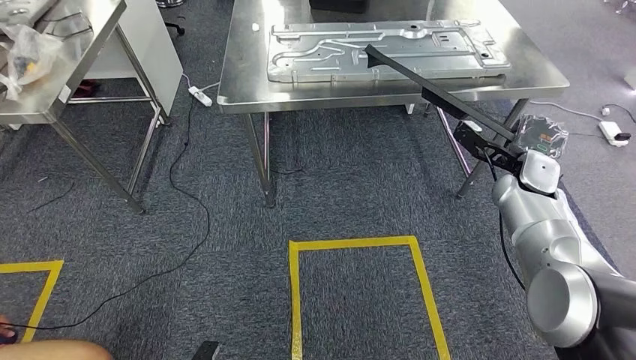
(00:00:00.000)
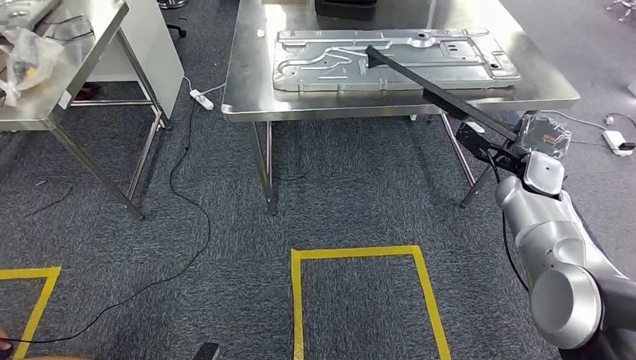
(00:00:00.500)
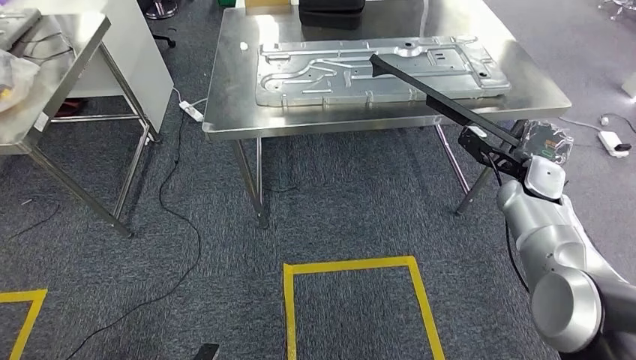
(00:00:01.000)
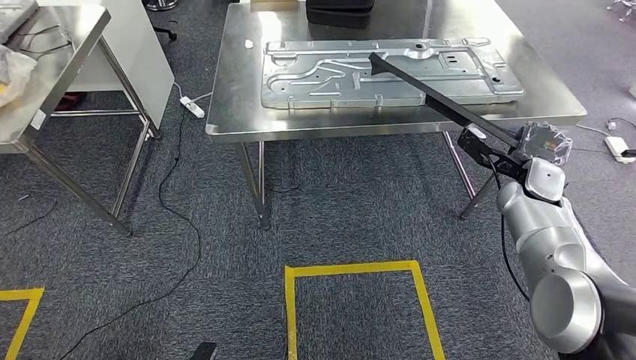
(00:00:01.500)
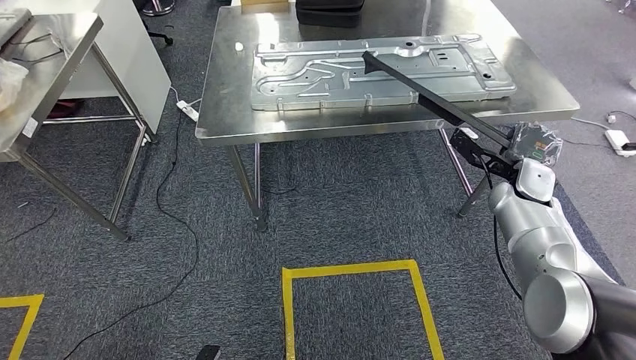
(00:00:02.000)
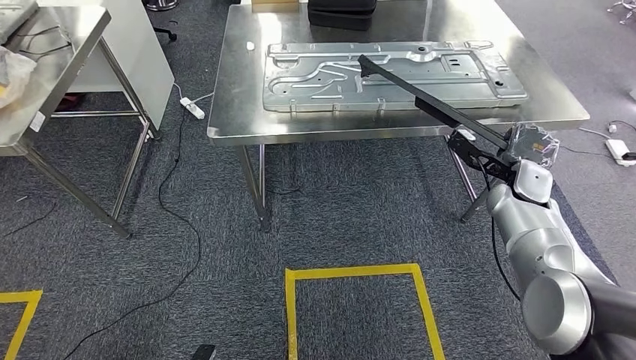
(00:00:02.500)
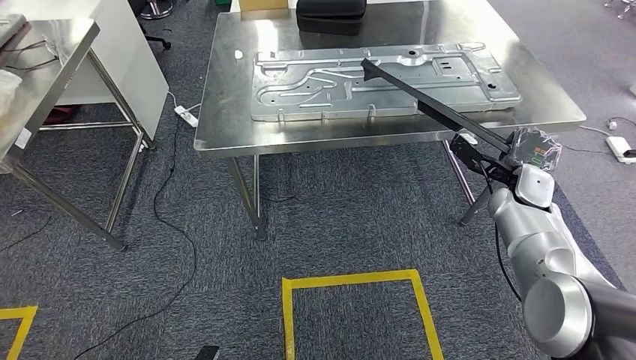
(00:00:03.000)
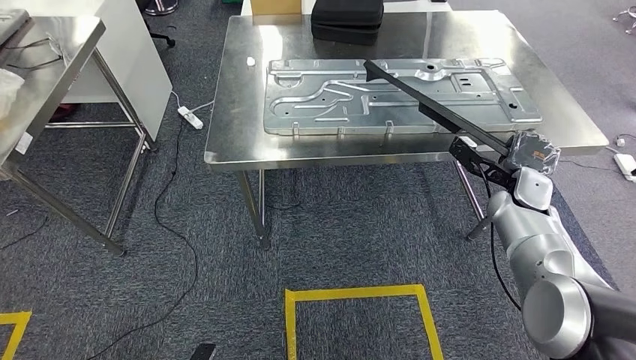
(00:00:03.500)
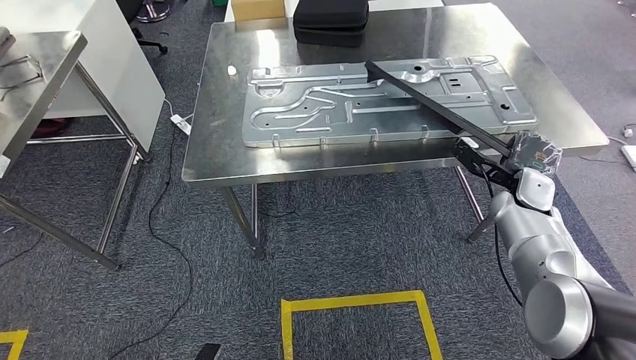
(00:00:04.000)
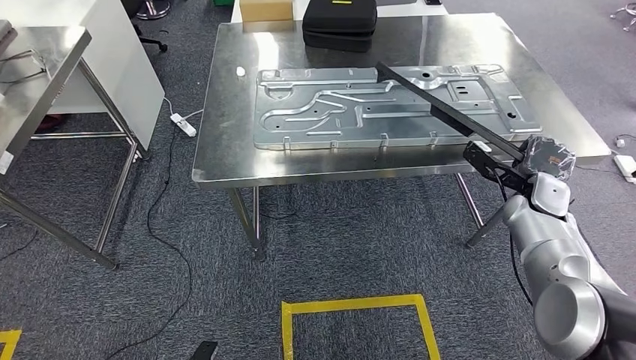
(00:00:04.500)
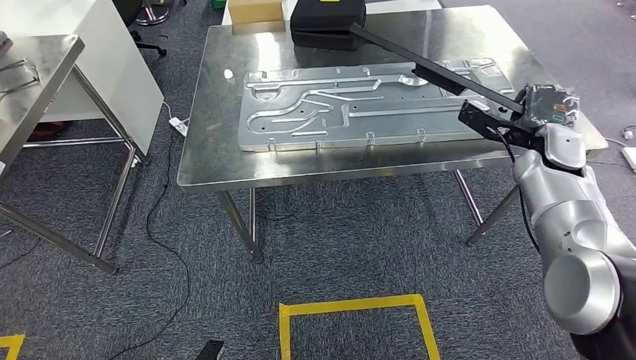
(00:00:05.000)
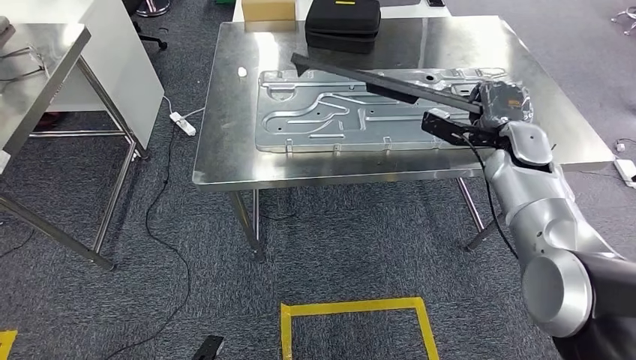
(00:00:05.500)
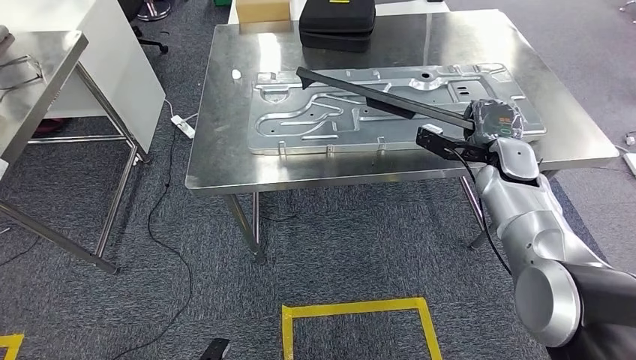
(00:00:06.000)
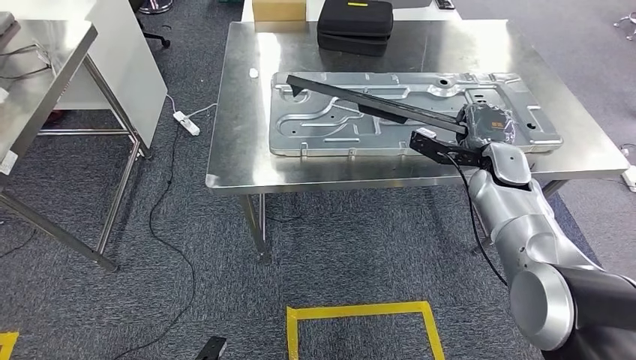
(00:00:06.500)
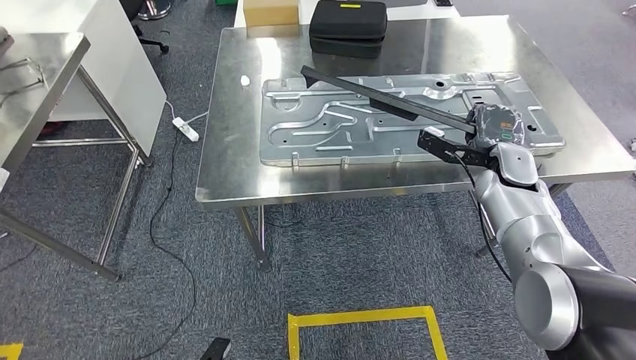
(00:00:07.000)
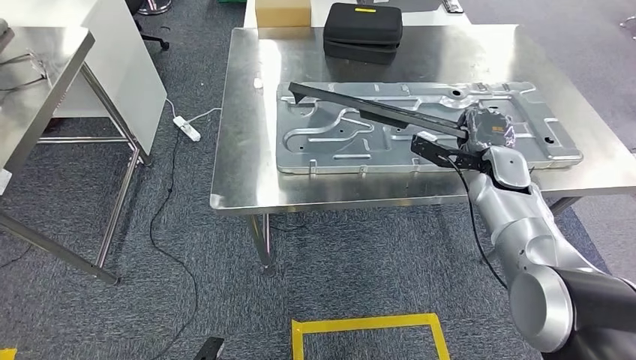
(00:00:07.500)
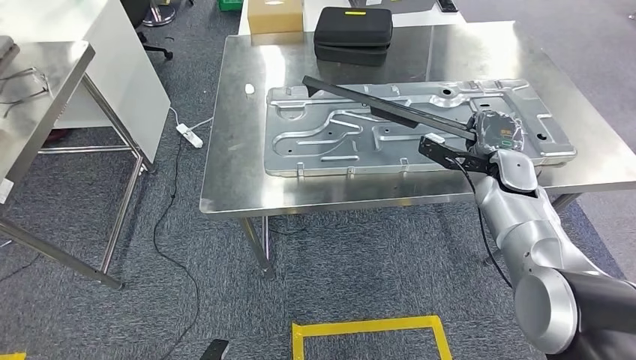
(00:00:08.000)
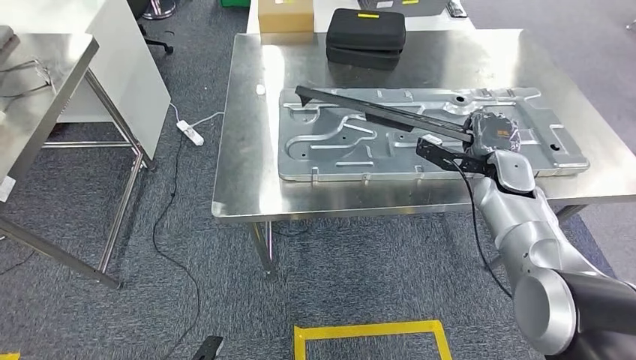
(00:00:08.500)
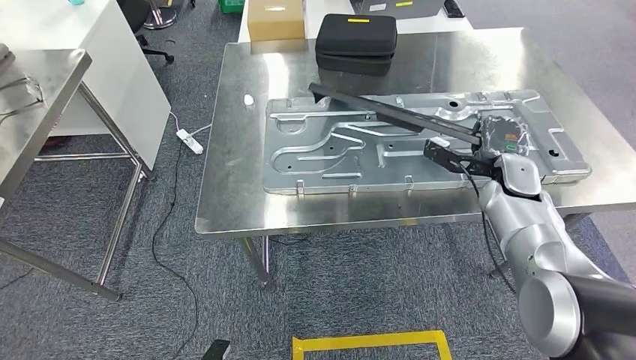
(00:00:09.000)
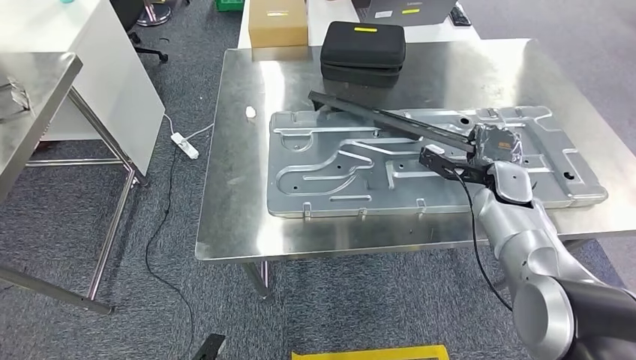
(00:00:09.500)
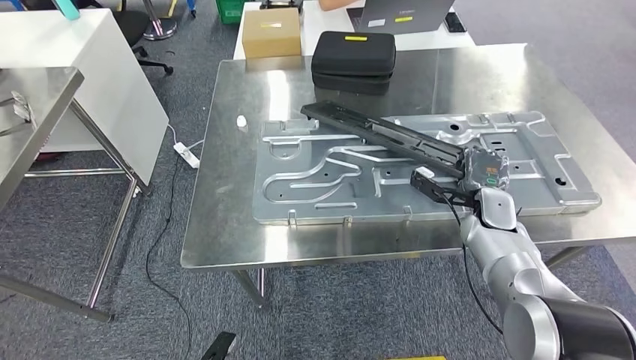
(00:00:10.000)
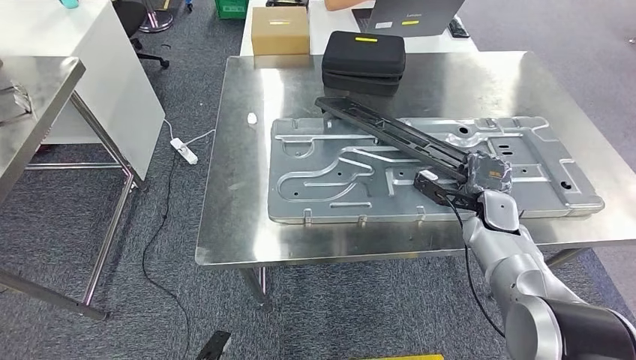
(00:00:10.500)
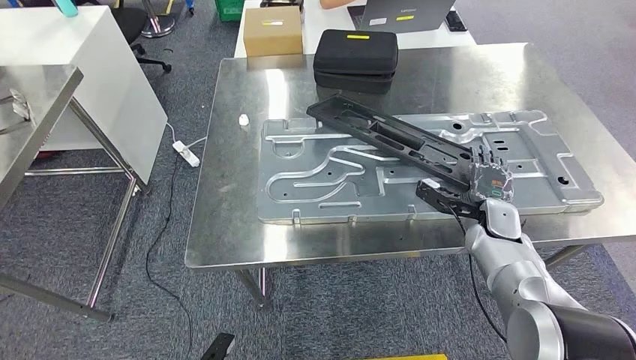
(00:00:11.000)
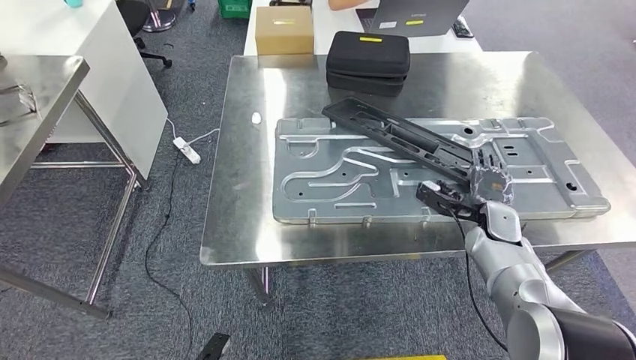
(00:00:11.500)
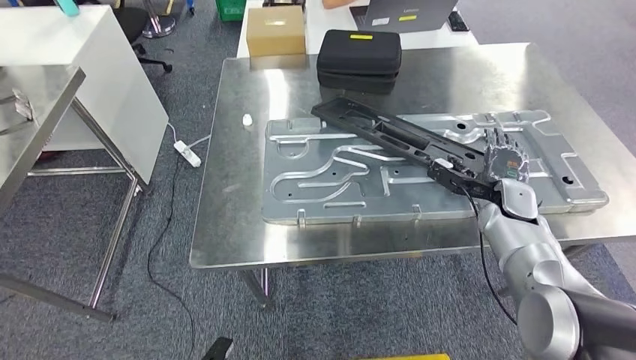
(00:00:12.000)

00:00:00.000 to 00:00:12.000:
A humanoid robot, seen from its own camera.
Step, 00:00:00.000 to 00:00:04.000: Move the large material to the workbench.
00:00:04.000 to 00:00:06.000: The right hand heads to the left, covering roughly 5 cm.
00:00:10.000 to 00:00:12.000: There are only small adjustments of the hands.

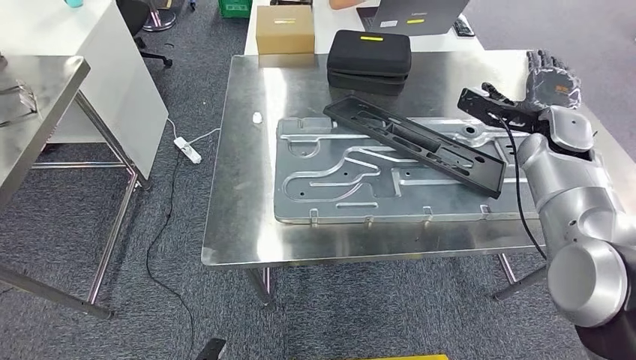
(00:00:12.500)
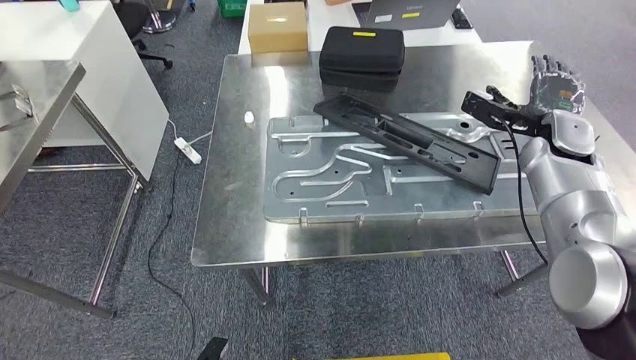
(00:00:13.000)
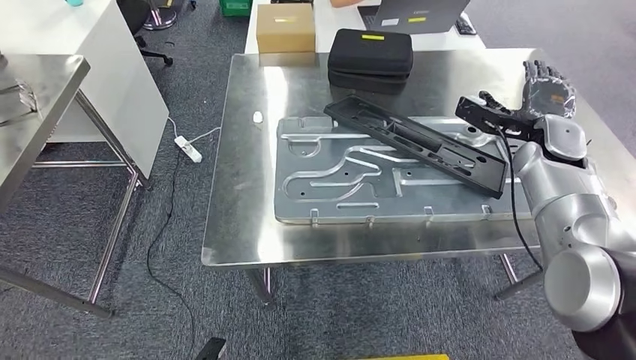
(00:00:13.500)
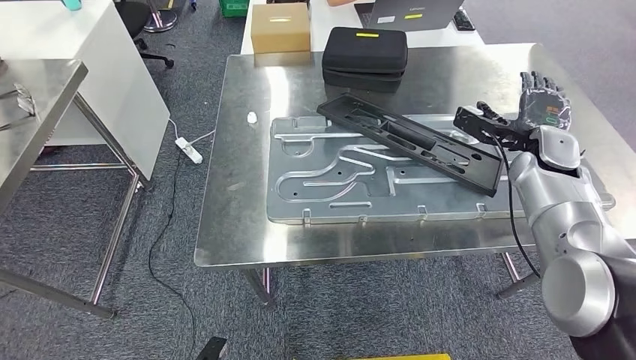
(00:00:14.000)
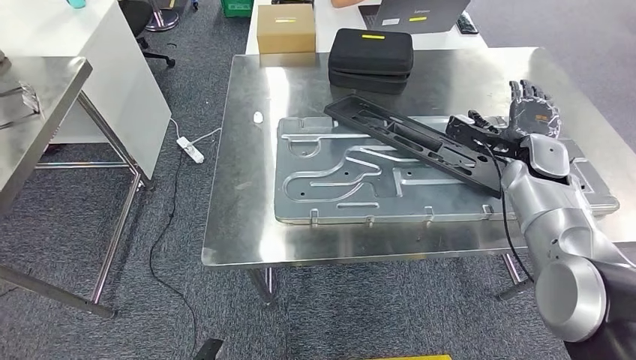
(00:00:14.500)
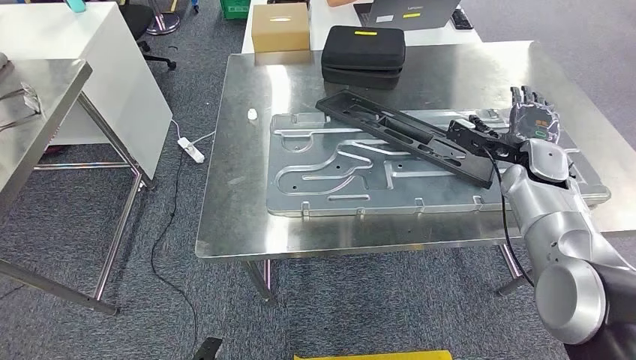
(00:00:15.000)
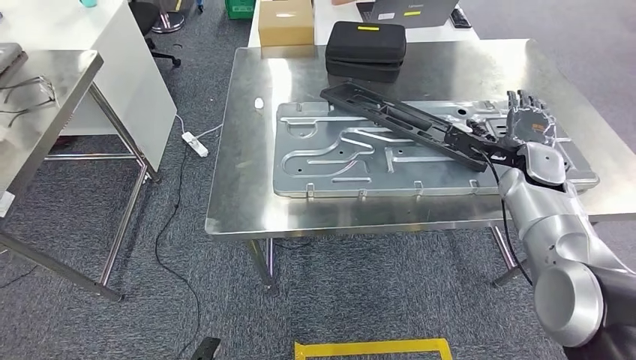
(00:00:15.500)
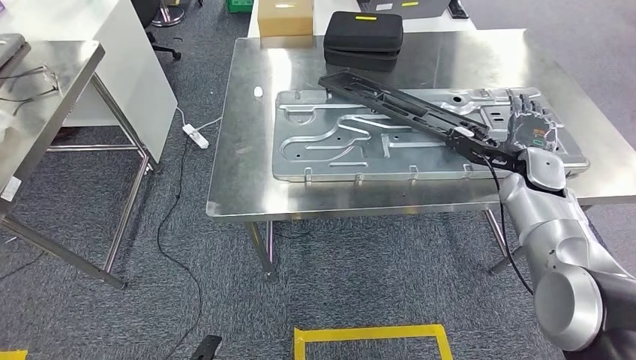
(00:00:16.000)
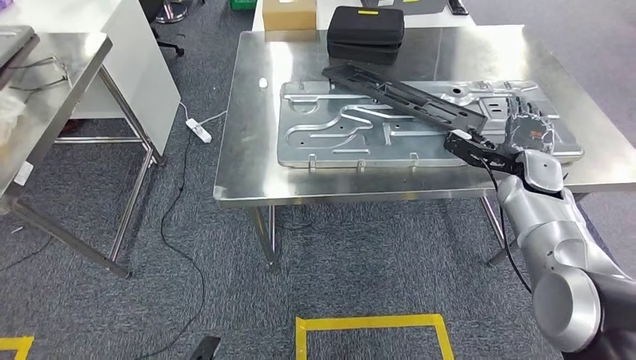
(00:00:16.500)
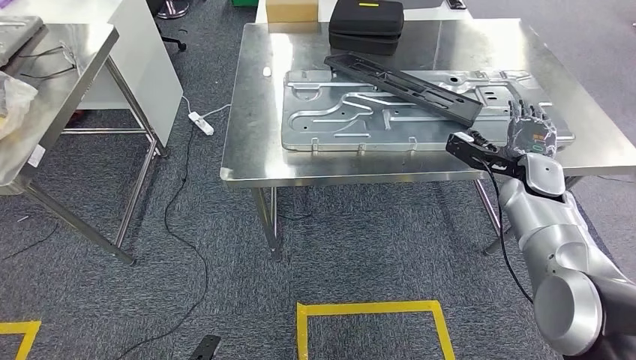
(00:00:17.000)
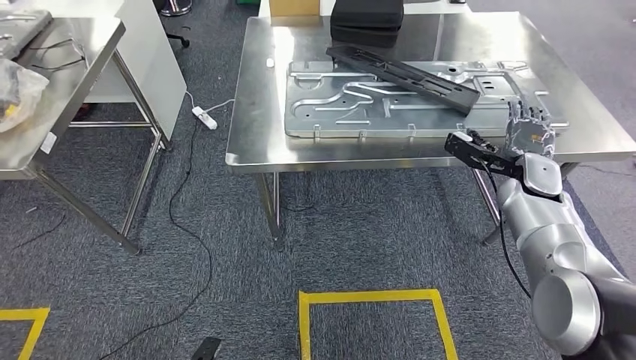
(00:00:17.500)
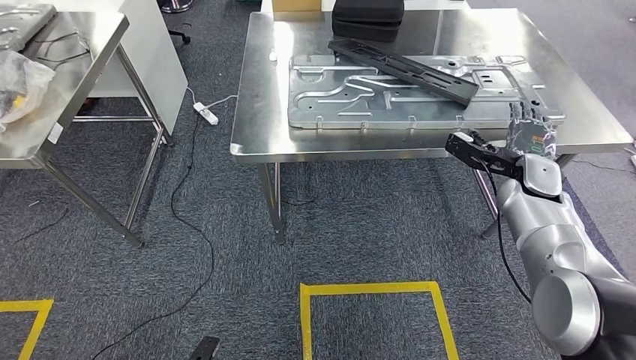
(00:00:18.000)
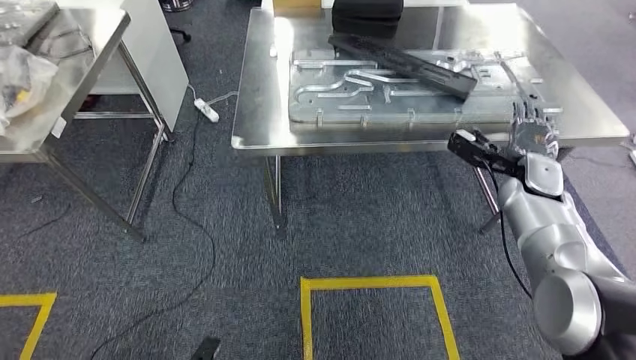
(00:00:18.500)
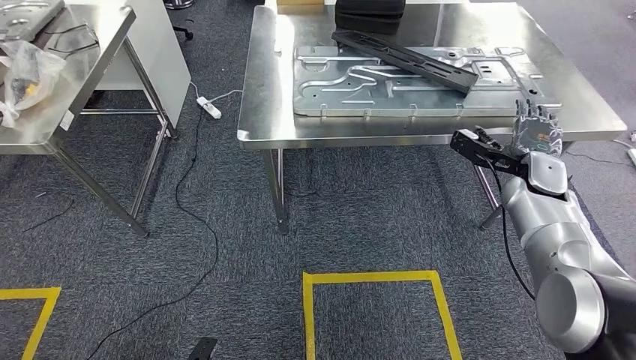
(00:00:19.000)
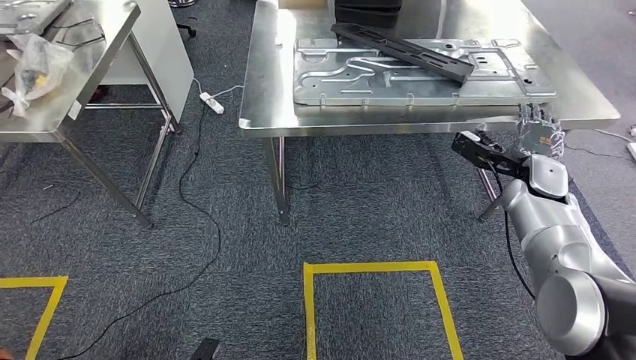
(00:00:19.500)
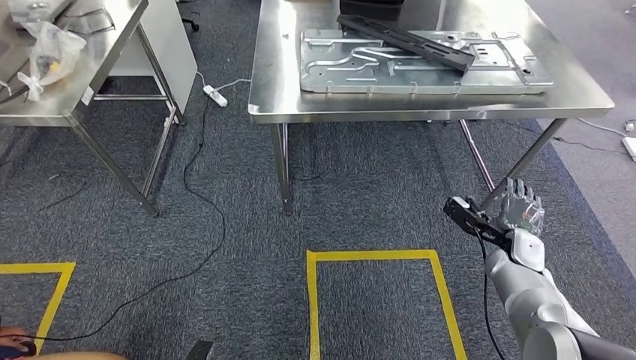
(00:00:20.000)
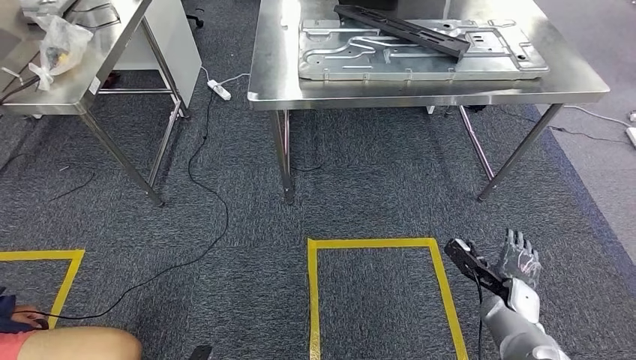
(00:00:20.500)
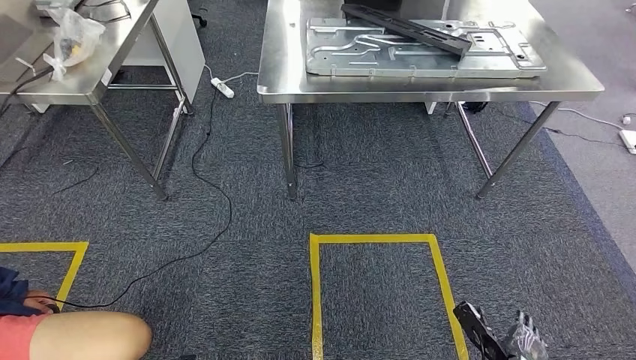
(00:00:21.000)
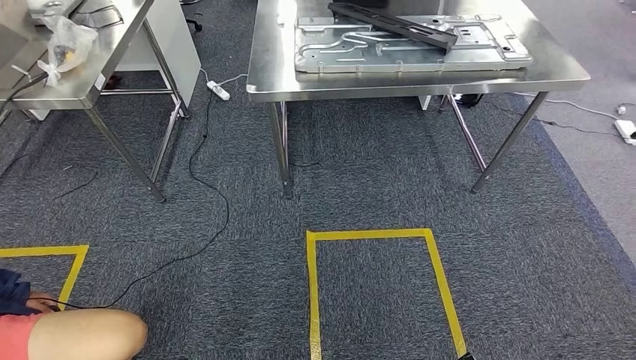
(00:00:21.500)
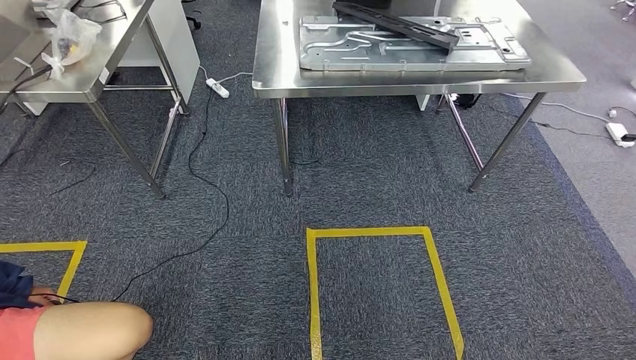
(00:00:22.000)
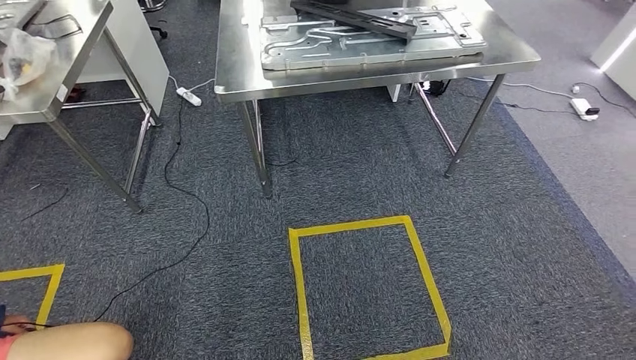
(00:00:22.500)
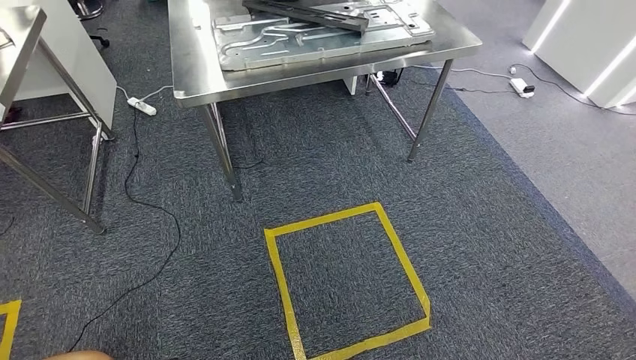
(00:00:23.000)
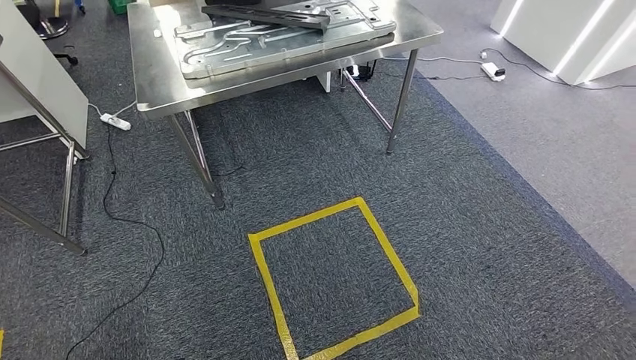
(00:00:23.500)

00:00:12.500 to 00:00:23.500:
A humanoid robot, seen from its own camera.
00:00:12.500 to 00:00:14.500: The right hand is displaced downward by approximately 5 cm.
